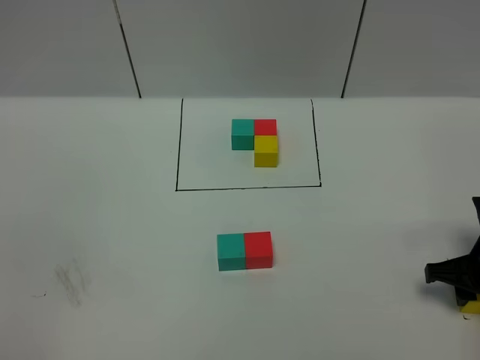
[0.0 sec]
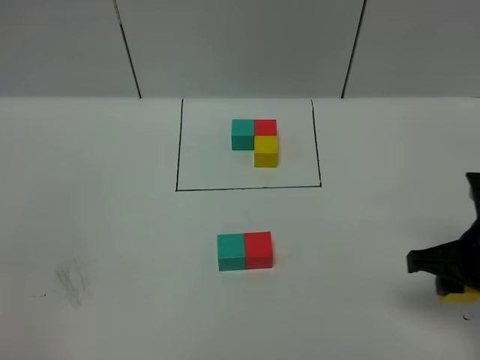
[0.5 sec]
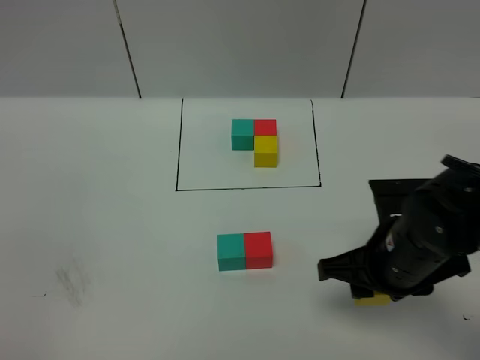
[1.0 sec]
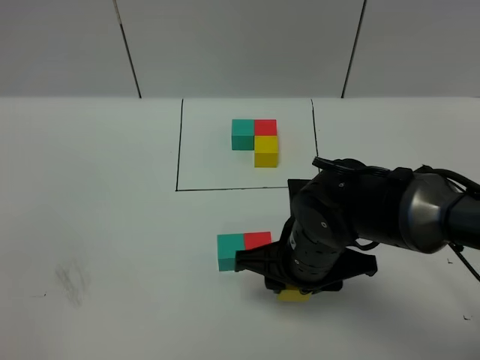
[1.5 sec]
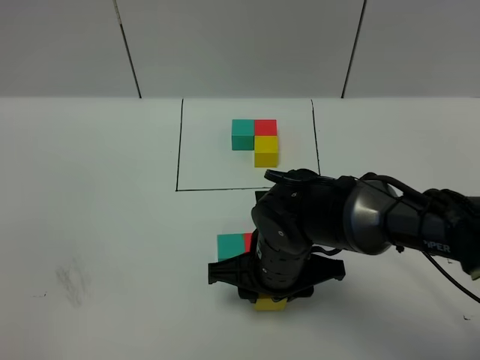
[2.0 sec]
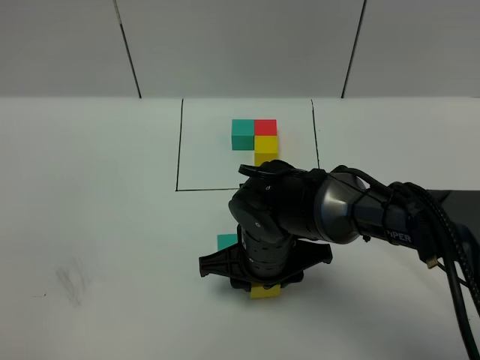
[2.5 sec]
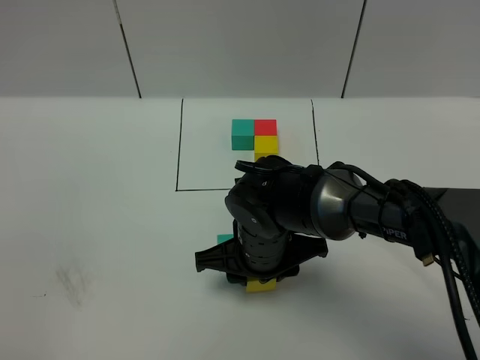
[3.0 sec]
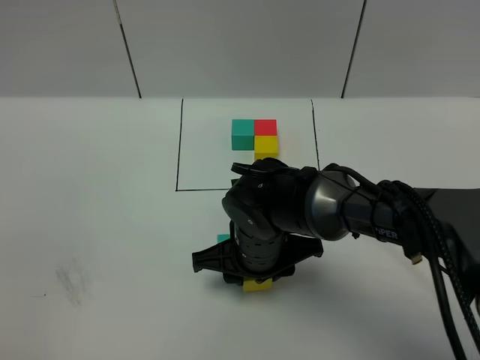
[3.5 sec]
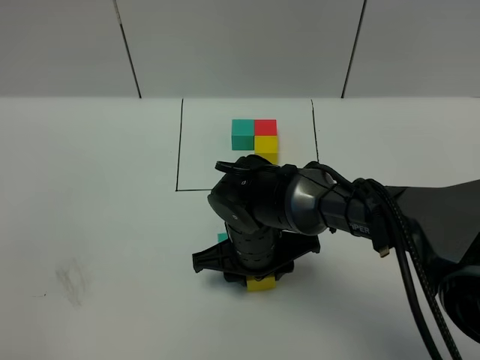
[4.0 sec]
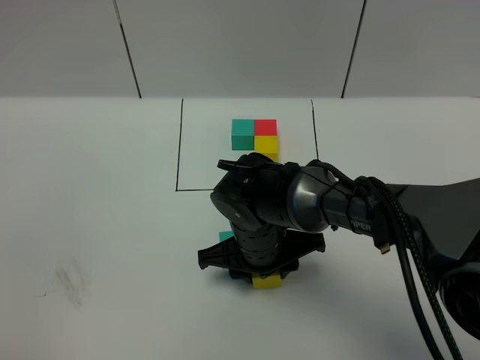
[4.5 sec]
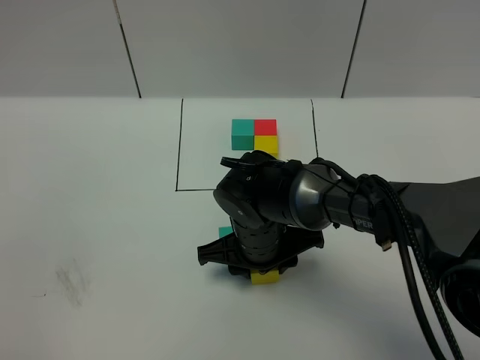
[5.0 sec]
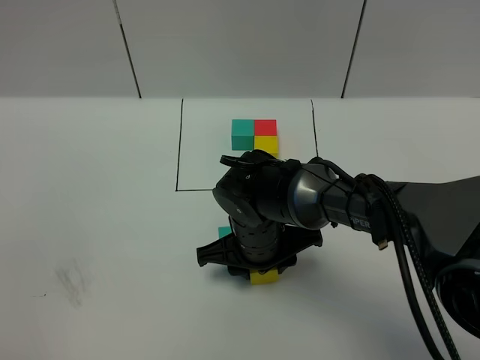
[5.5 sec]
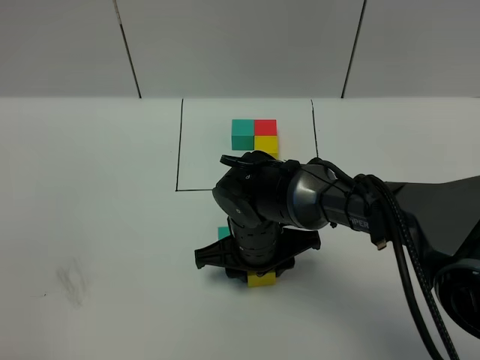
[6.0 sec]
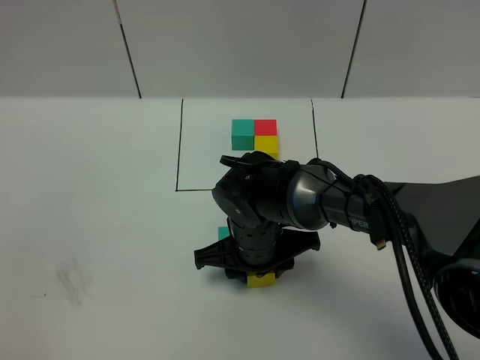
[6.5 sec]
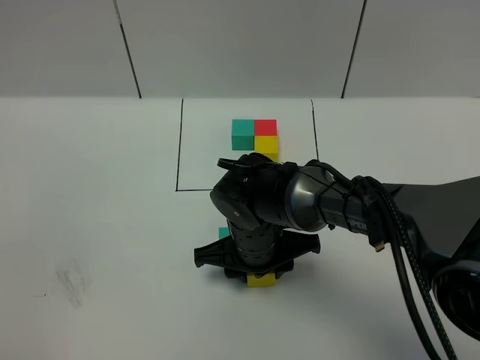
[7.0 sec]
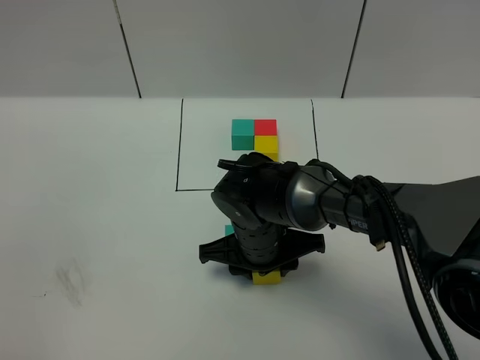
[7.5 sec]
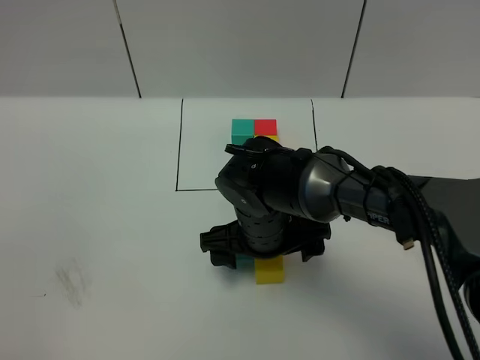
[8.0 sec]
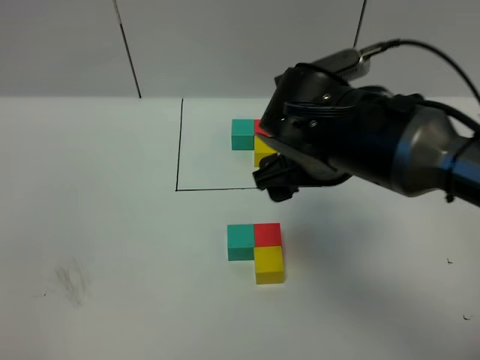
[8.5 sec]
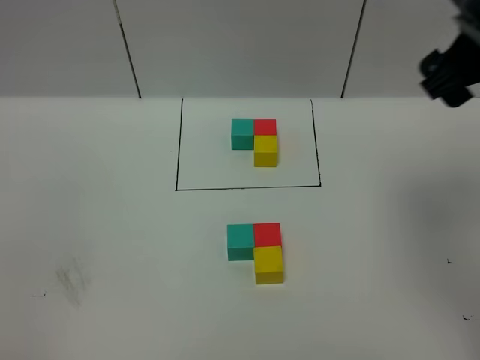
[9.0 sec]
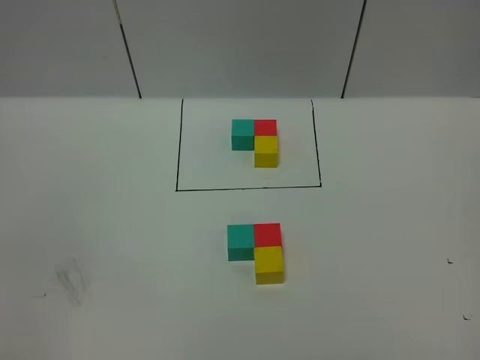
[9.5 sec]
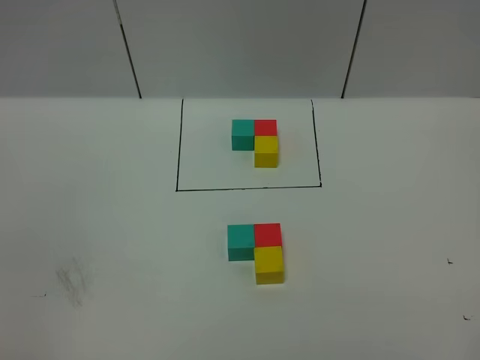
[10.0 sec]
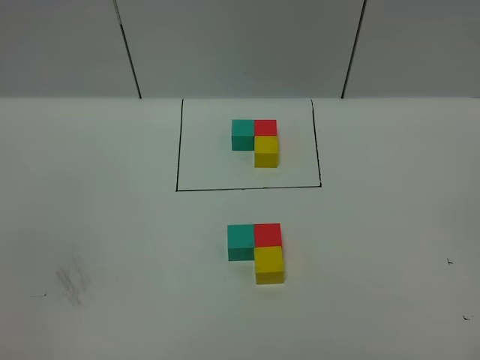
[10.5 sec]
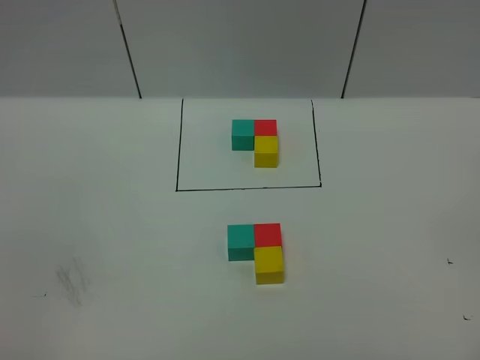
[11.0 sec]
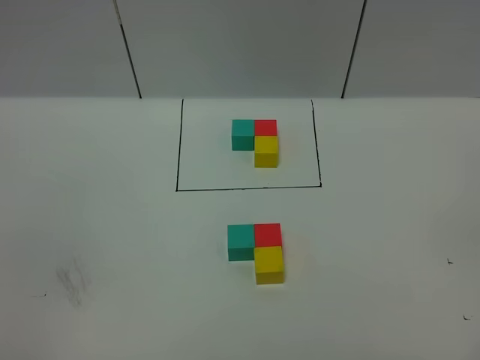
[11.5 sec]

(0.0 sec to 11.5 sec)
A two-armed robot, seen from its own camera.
Task of the whole recording: According to the building block template in front, assemble the scattered blocks together.
Step, 0.0 sec - 8.0 sec: Put the yellow cube in the front of the red cube.
0.0 sec - 2.0 sec: The right gripper is displaced to the left by roughly 25 cm.
2.0 sec - 4.0 sec: There are only small adjustments of the grippers.
4.0 sec - 6.0 sec: Neither gripper changes place.
6.0 sec - 7.5 sec: The grippers stay close to where they were, moving slightly.
7.5 sec - 9.5 sec: The right gripper heads upward and to the right, covering approximately 50 cm, and opens its fingers.
